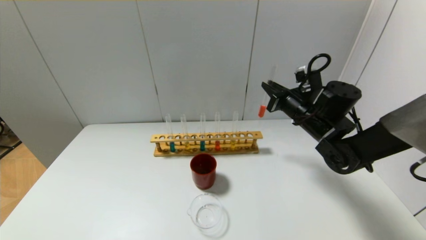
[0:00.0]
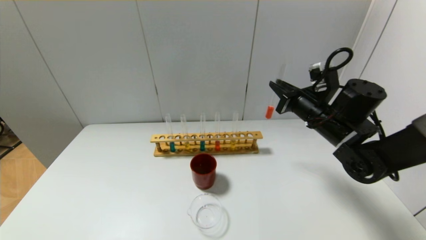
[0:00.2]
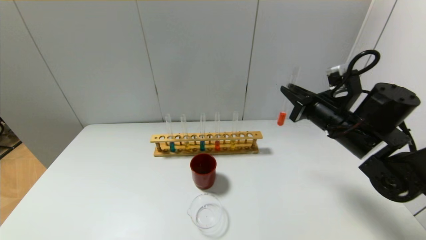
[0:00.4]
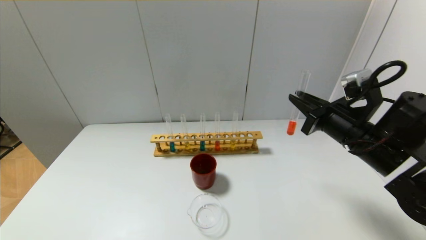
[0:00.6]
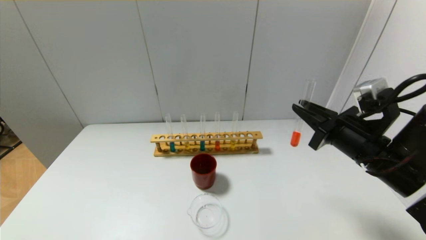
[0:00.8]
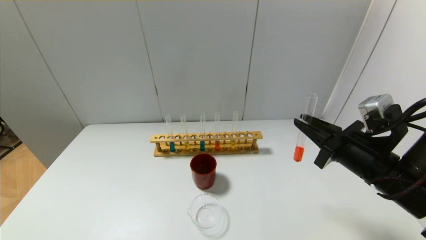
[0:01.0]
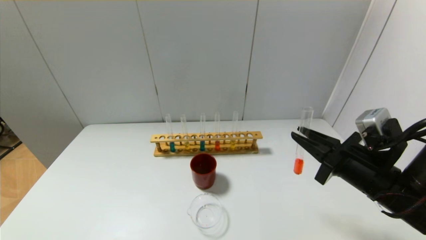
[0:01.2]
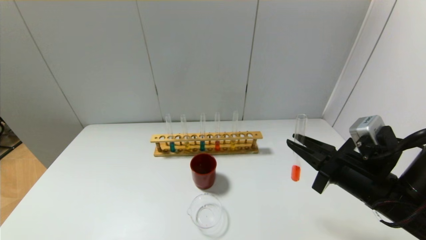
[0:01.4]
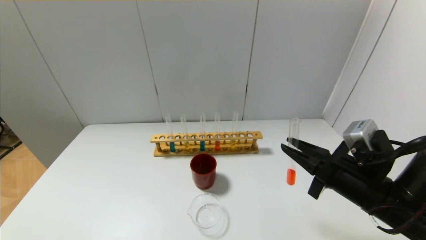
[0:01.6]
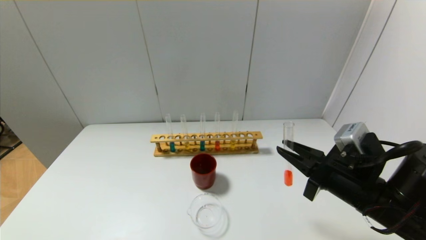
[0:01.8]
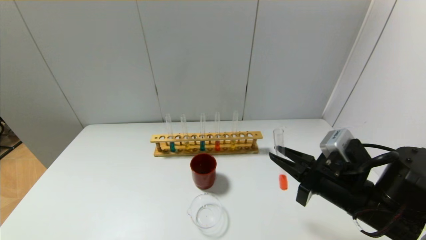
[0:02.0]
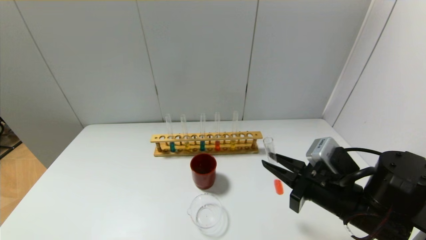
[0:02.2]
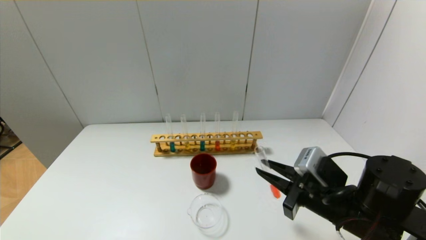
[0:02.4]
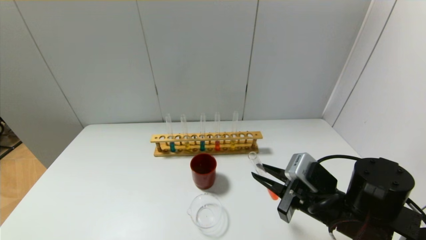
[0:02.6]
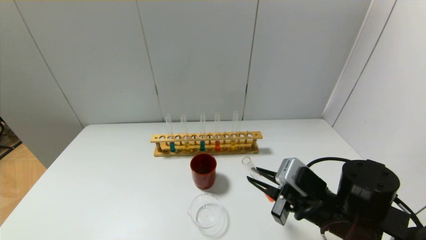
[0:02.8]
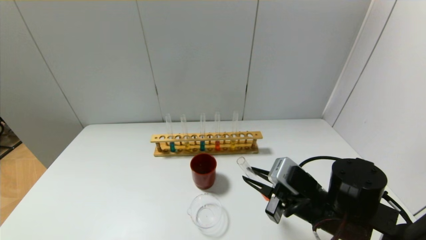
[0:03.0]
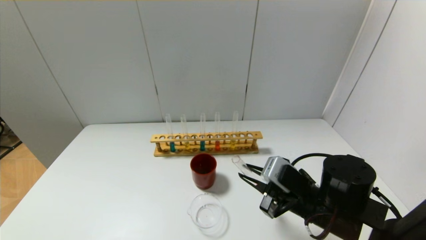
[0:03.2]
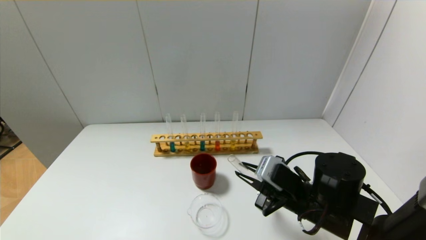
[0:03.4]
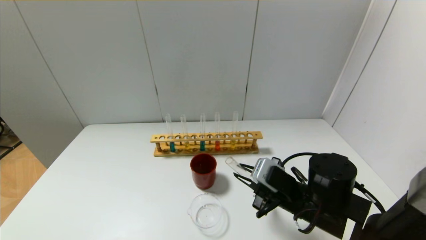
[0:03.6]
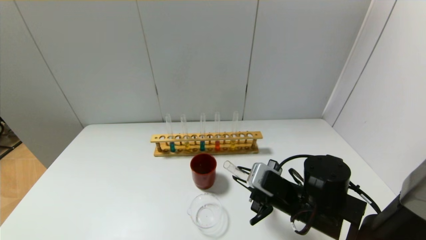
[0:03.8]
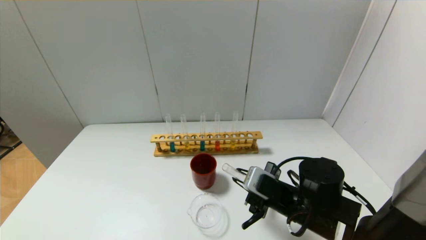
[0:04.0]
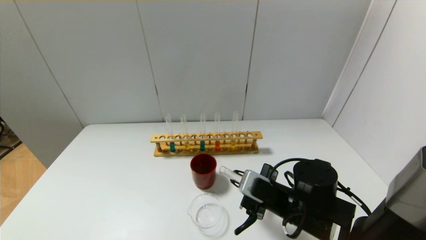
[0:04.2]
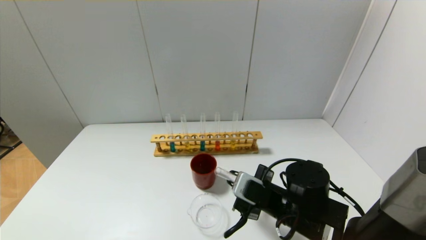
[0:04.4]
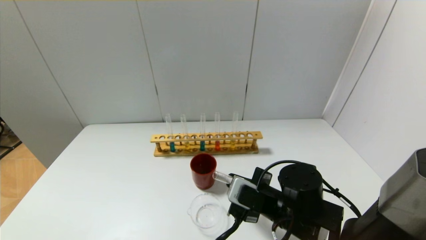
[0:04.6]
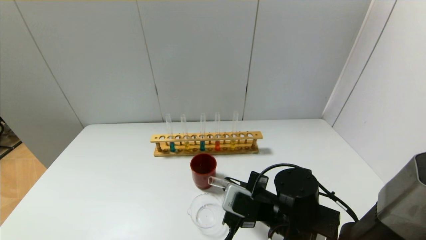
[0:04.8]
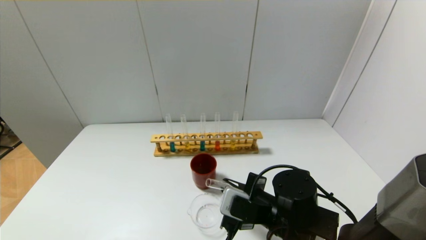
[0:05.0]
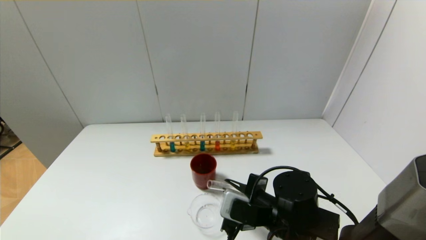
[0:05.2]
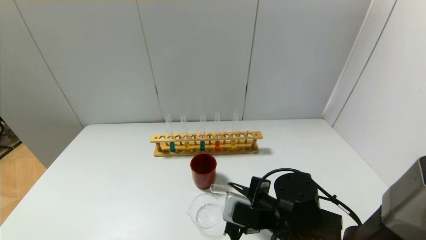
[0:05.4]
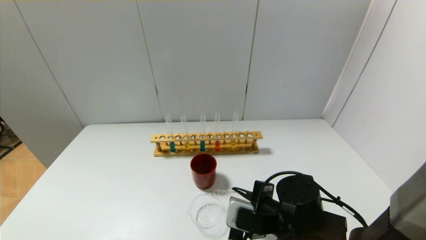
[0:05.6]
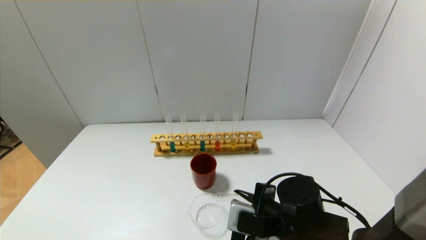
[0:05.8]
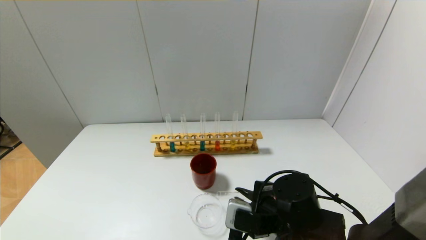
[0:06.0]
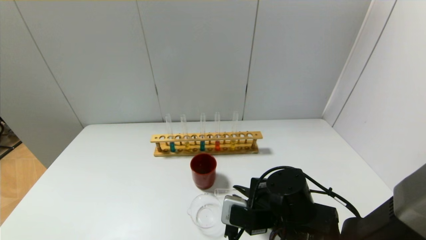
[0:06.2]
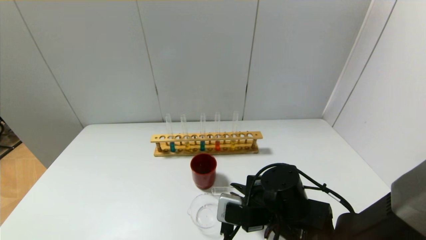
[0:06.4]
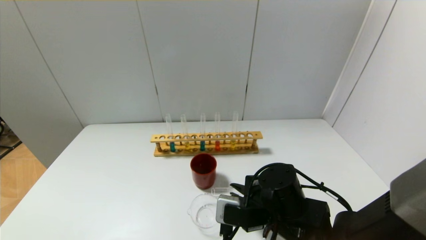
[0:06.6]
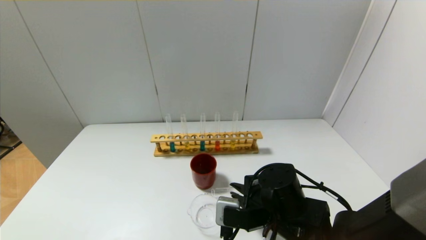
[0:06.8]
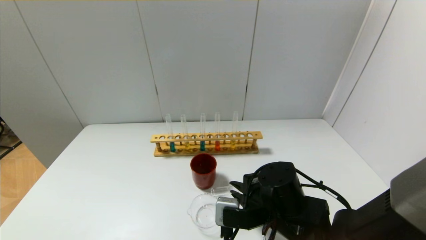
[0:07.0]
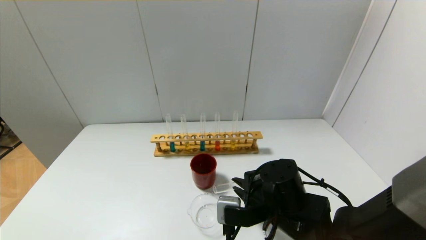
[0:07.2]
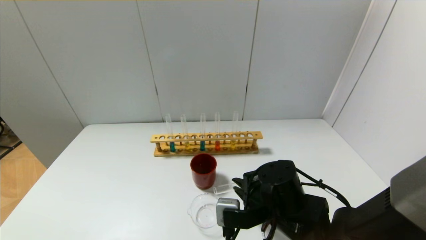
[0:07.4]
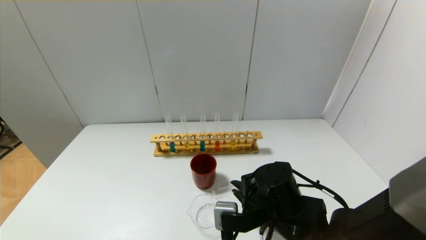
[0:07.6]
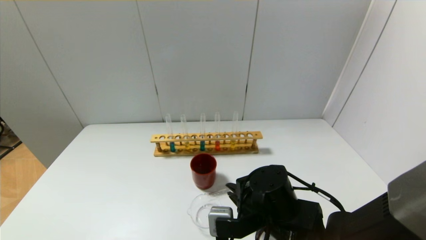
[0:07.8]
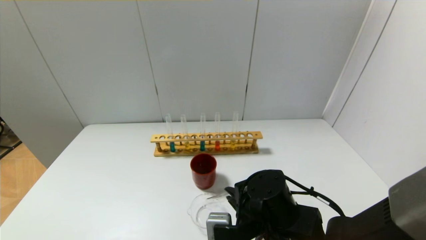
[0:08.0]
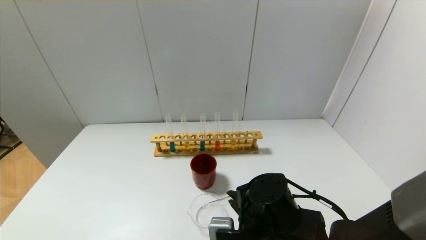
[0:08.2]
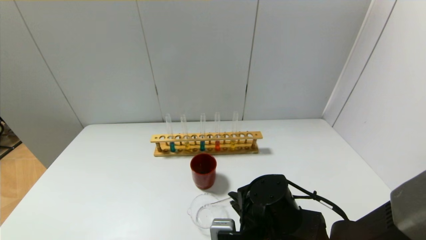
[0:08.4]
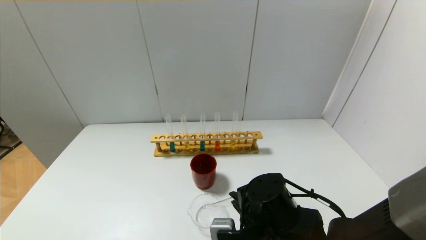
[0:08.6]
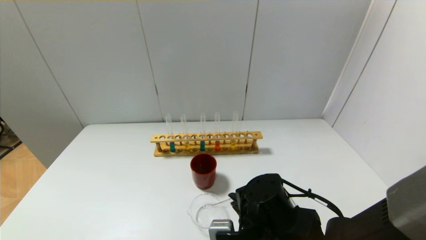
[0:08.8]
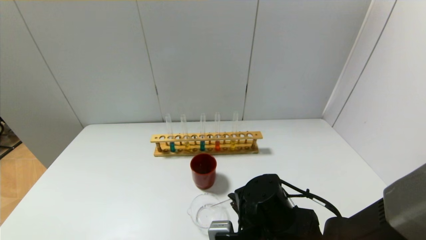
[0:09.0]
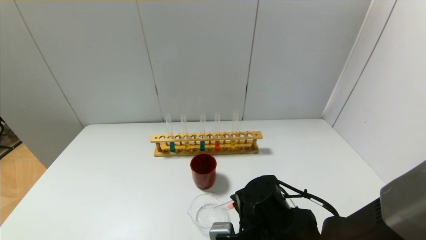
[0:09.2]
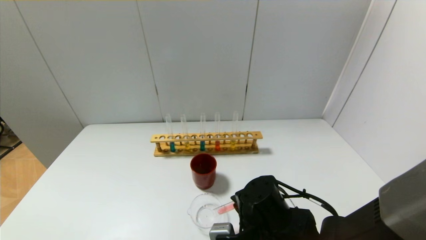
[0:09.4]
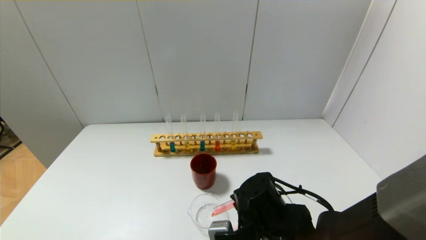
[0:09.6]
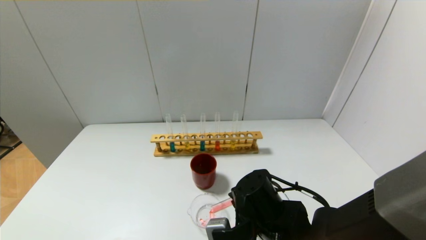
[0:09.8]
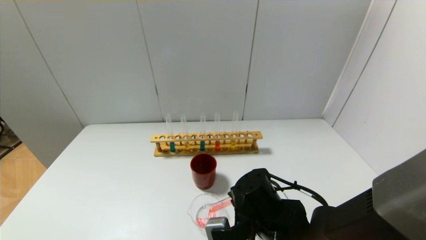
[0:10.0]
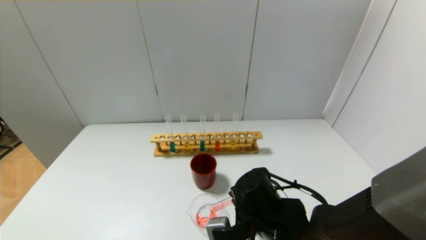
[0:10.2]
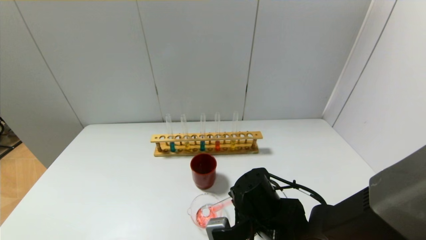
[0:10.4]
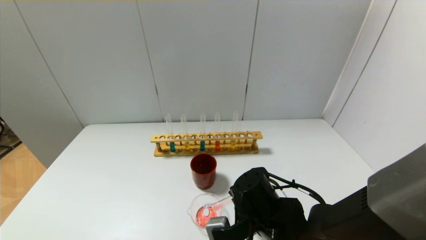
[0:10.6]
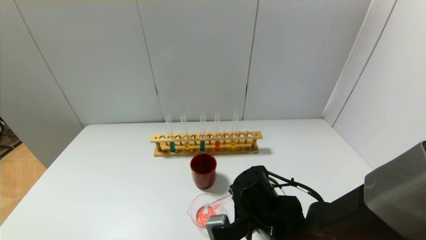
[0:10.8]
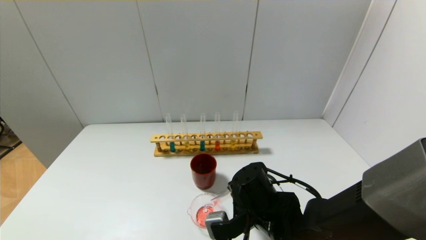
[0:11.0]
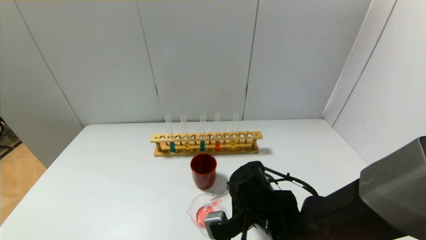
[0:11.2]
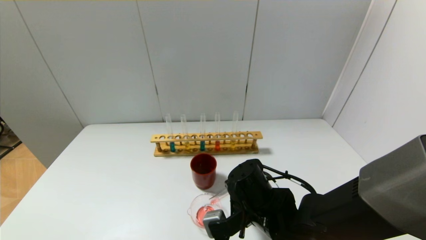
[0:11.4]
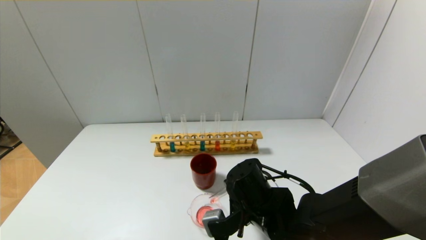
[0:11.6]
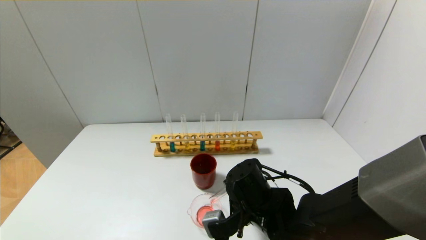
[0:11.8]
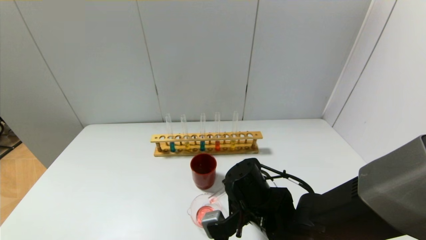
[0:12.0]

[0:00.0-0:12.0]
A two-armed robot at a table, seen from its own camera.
0:00.0 to 0:01.6: The right gripper goes some 20 cm backward.
0:01.6 to 0:03.0: The right gripper travels to the left and downward by some 10 cm.
0:03.0 to 0:04.4: The right gripper changes place by roughly 5 cm.
0:06.0 to 0:07.6: The grippers move only a little.
0:07.6 to 0:10.4: The grippers move only a little.
0:10.4 to 0:12.0: The grippers move only a little.

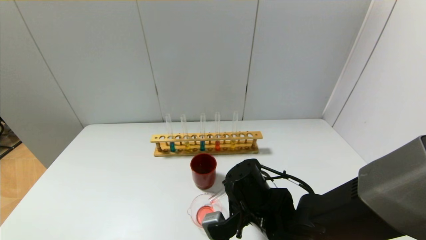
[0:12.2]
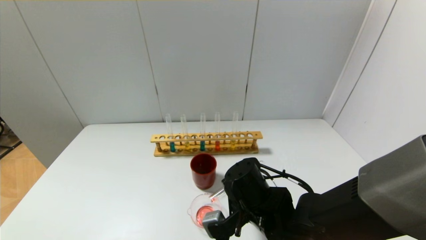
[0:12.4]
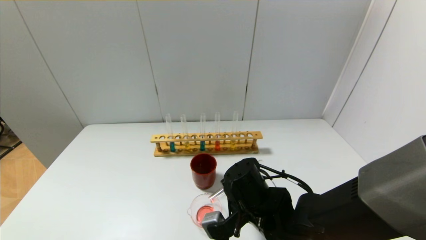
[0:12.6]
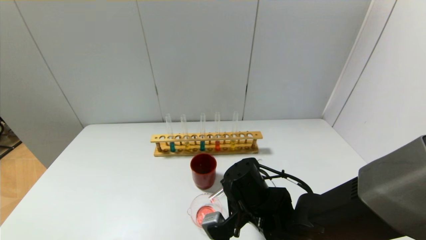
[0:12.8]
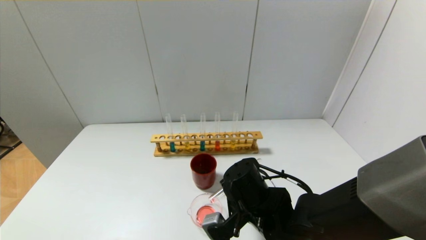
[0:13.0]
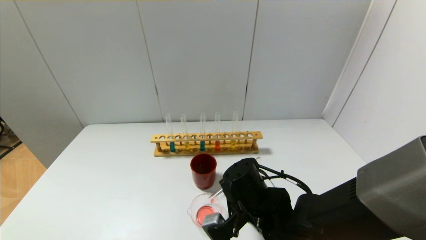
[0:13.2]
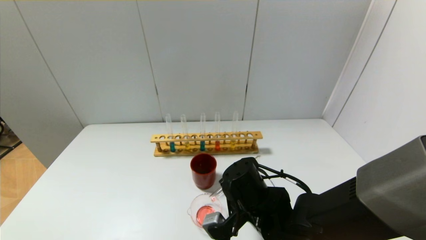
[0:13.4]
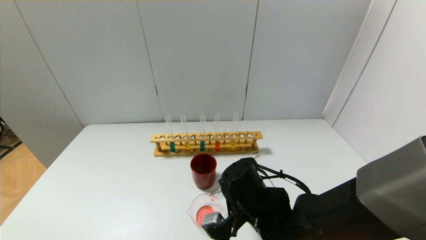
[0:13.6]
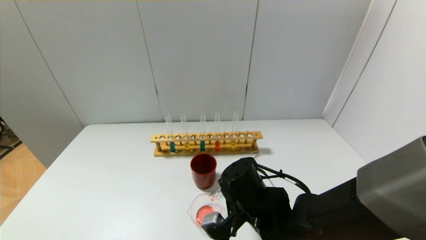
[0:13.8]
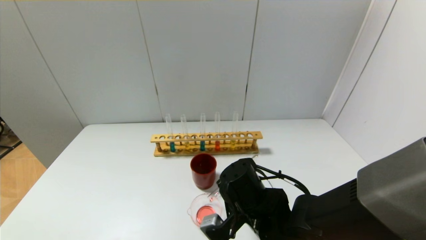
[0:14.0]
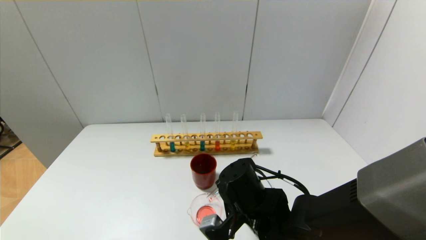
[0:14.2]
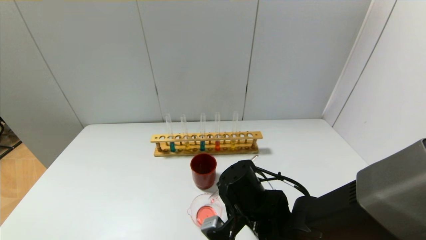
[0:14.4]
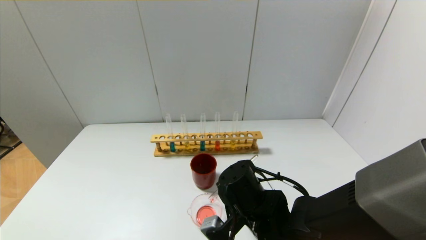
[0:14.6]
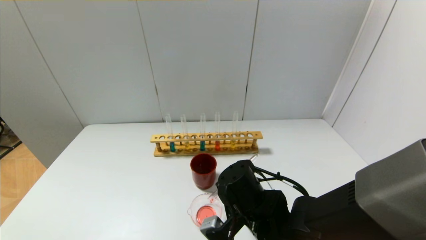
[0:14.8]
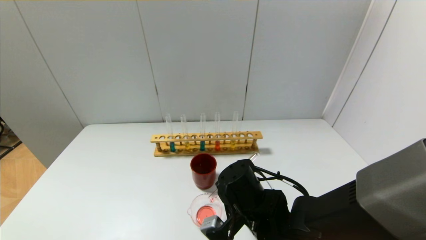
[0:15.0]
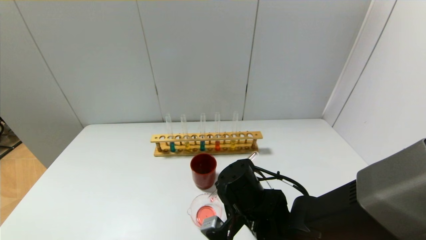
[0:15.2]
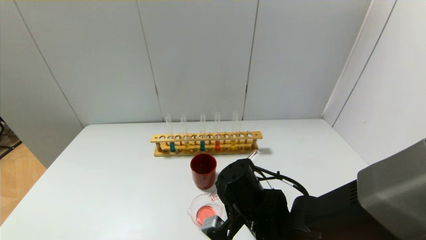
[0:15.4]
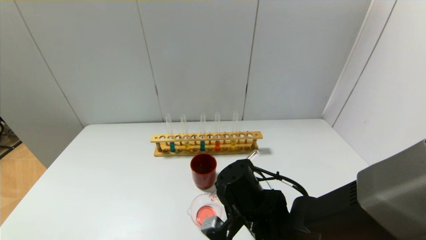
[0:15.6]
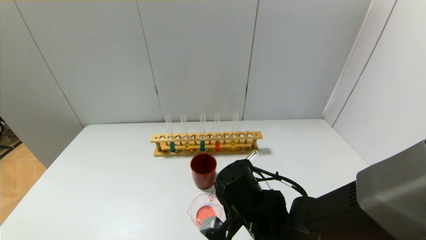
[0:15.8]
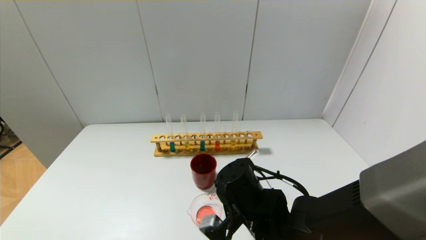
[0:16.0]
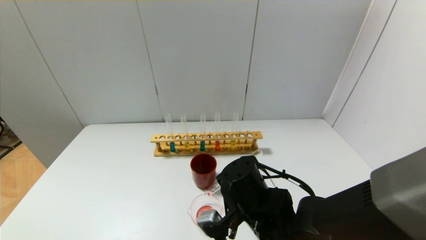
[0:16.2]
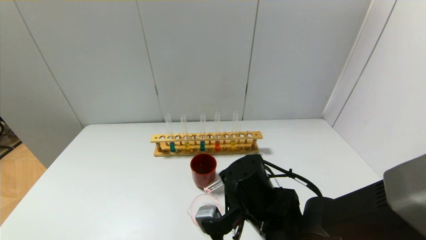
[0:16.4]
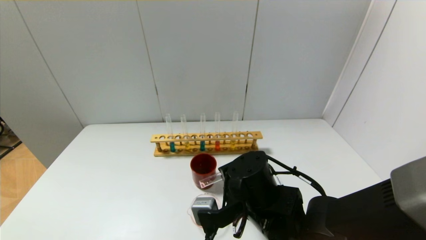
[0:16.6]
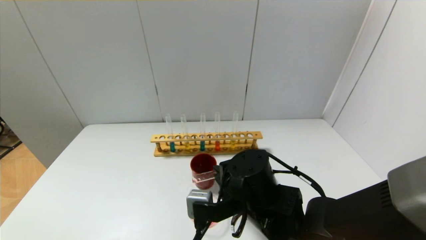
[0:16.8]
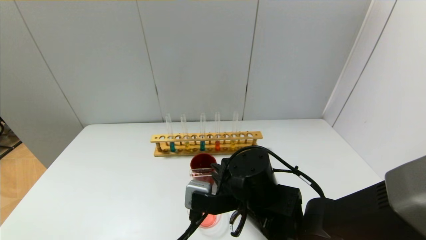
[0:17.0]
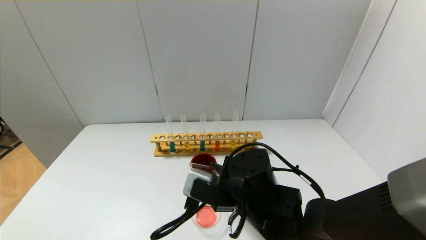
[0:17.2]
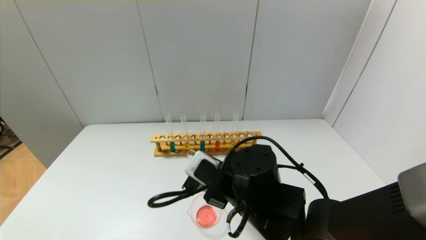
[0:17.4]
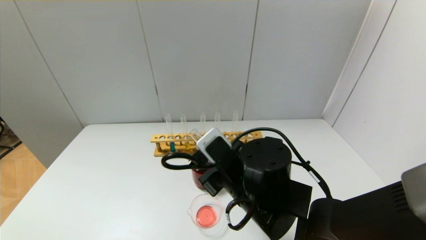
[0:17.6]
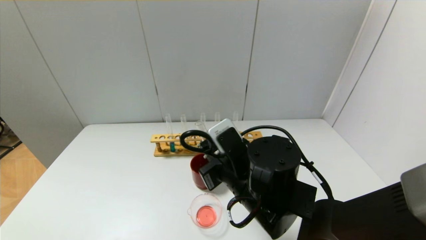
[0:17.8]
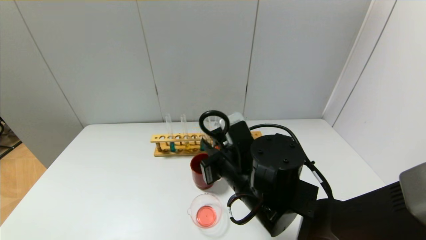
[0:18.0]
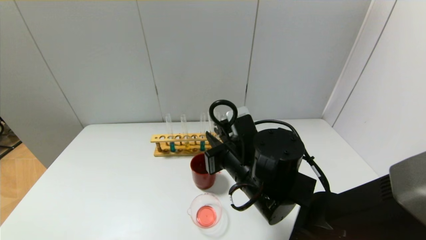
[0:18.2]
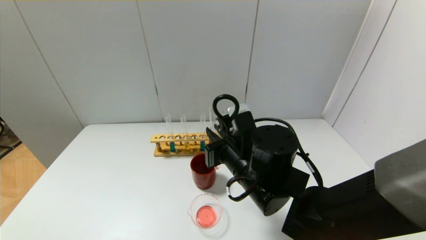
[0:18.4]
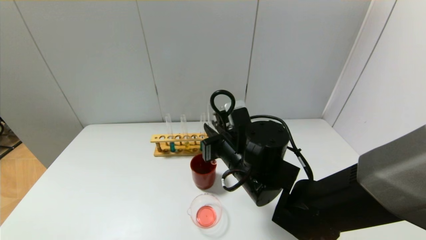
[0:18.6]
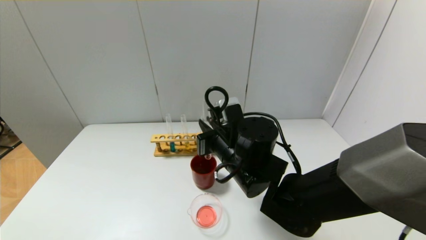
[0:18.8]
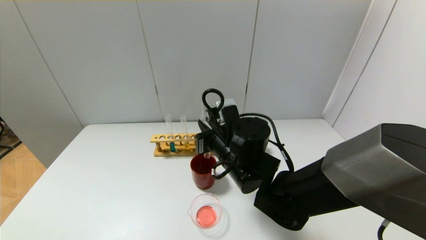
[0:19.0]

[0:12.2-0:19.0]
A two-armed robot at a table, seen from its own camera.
Step, 0:12.2 to 0:16.6: Pour the red reagent into the graduated cylinder with the right gripper.
0:12.2 to 0:13.6: The grippers move only a little.
0:13.6 to 0:15.0: Neither gripper changes place.
0:15.0 to 0:16.2: The grippers make only small movements.
0:16.2 to 0:17.6: The right gripper is displaced upward by roughly 5 cm.
0:17.6 to 0:19.0: The right gripper heads forward, covering roughly 5 cm.
